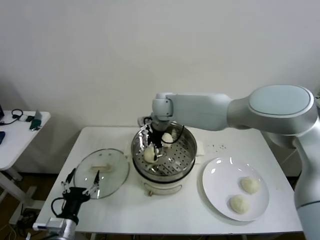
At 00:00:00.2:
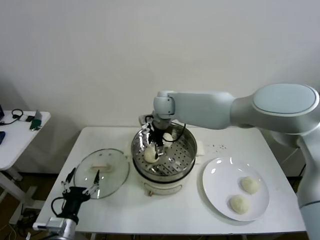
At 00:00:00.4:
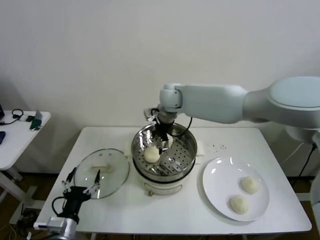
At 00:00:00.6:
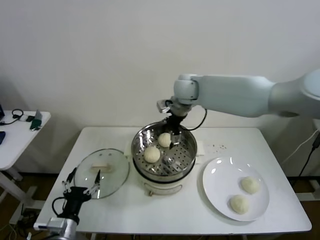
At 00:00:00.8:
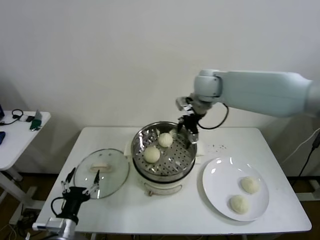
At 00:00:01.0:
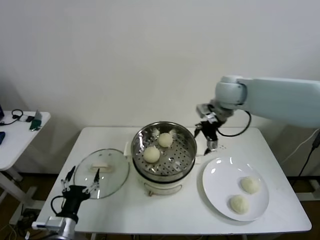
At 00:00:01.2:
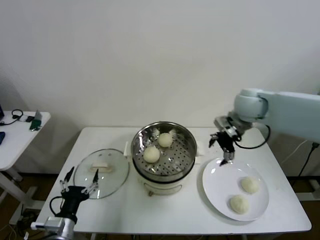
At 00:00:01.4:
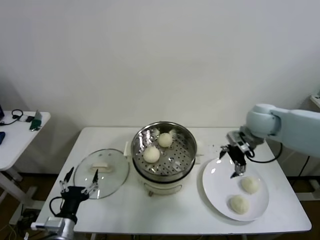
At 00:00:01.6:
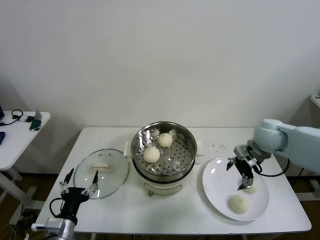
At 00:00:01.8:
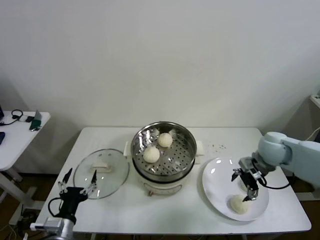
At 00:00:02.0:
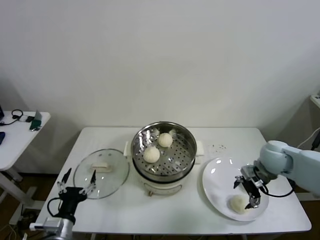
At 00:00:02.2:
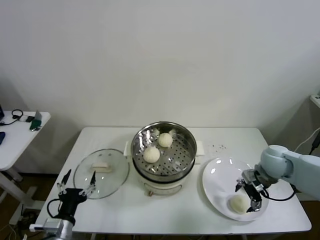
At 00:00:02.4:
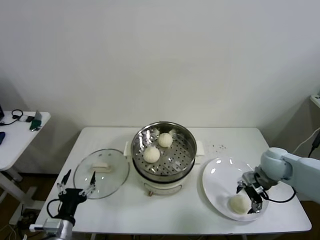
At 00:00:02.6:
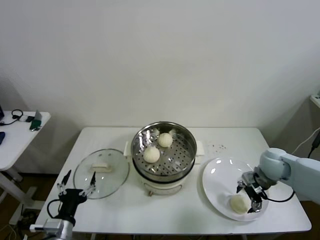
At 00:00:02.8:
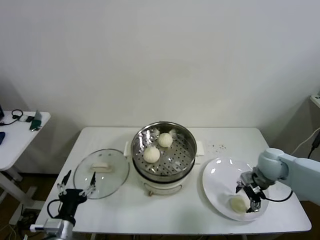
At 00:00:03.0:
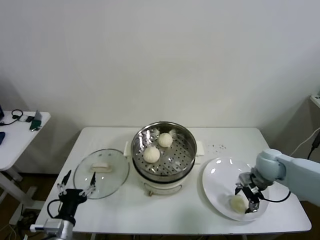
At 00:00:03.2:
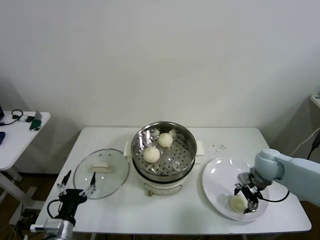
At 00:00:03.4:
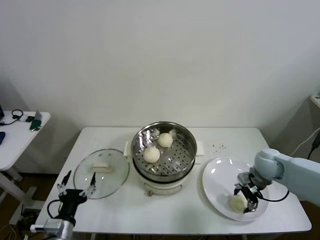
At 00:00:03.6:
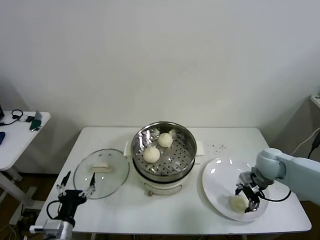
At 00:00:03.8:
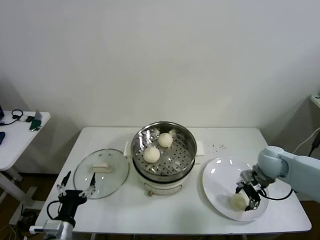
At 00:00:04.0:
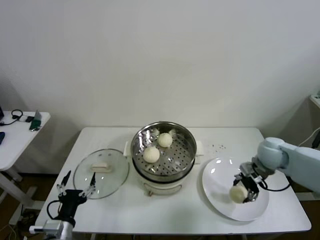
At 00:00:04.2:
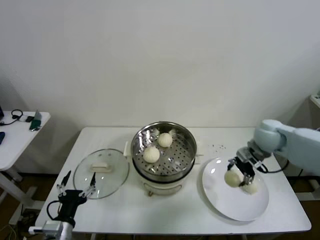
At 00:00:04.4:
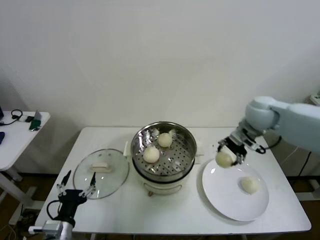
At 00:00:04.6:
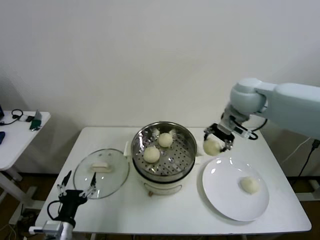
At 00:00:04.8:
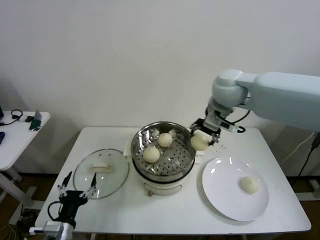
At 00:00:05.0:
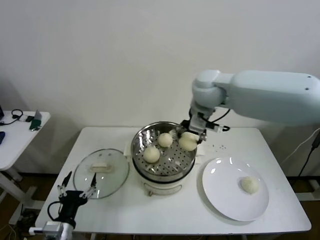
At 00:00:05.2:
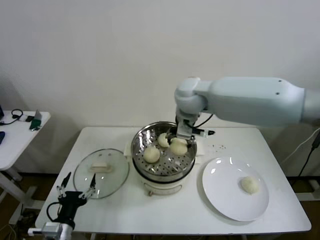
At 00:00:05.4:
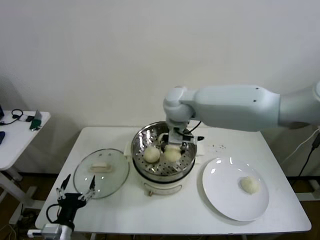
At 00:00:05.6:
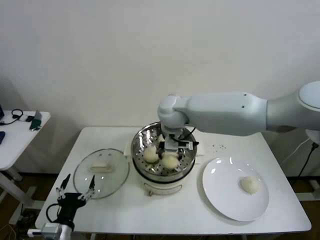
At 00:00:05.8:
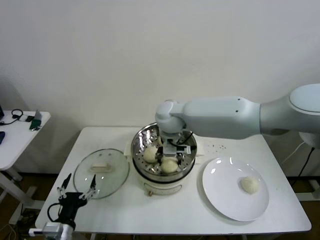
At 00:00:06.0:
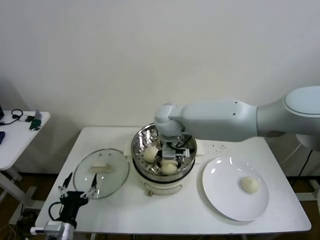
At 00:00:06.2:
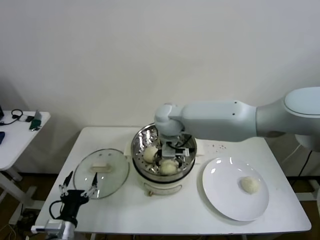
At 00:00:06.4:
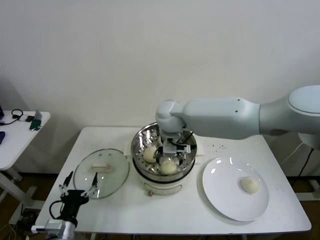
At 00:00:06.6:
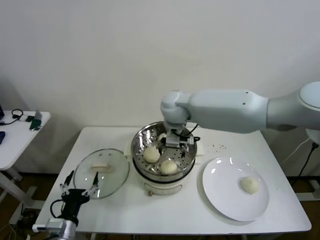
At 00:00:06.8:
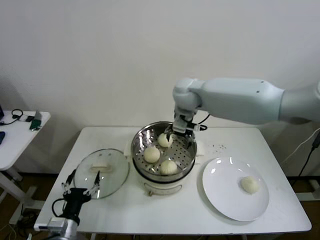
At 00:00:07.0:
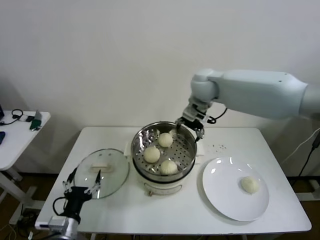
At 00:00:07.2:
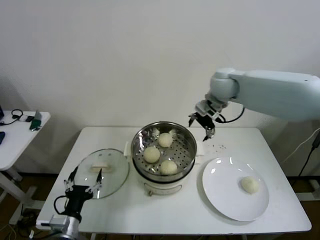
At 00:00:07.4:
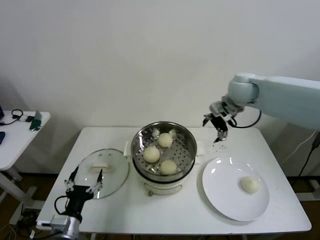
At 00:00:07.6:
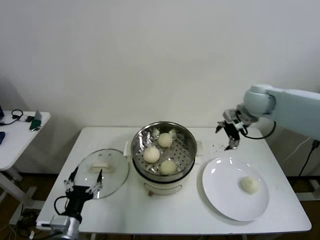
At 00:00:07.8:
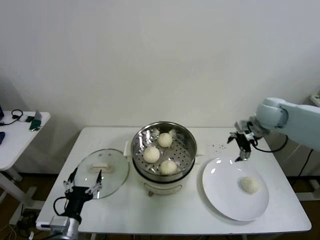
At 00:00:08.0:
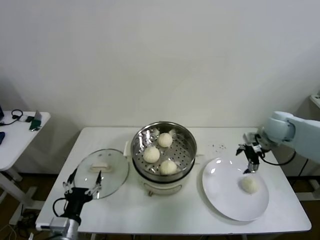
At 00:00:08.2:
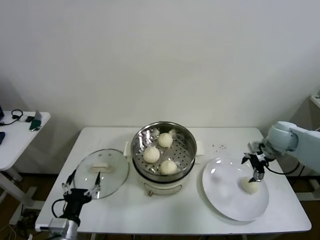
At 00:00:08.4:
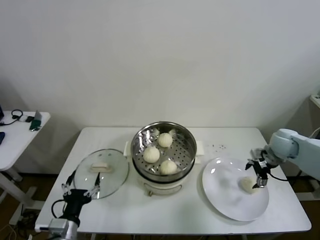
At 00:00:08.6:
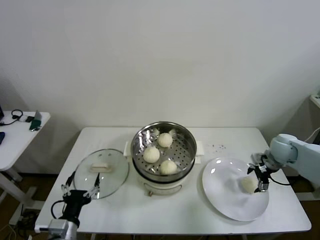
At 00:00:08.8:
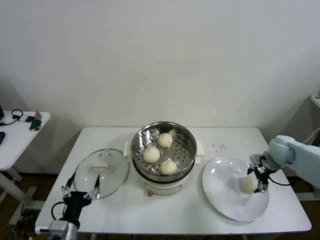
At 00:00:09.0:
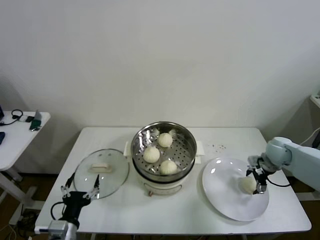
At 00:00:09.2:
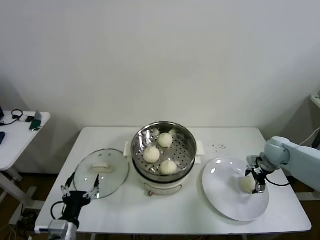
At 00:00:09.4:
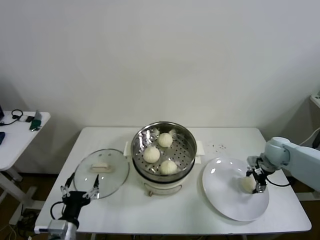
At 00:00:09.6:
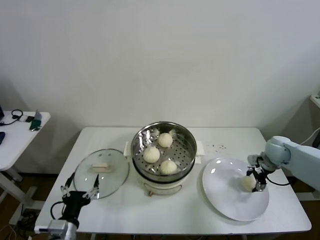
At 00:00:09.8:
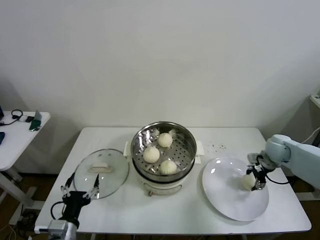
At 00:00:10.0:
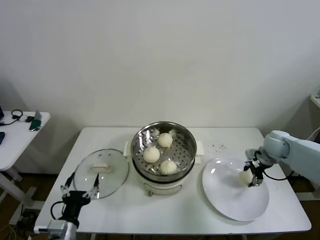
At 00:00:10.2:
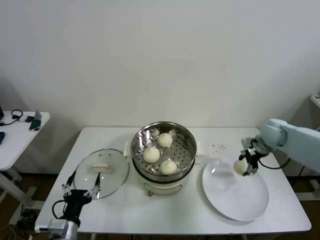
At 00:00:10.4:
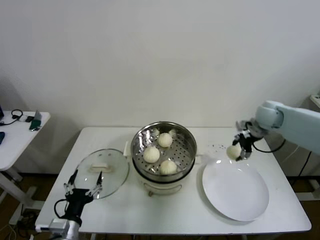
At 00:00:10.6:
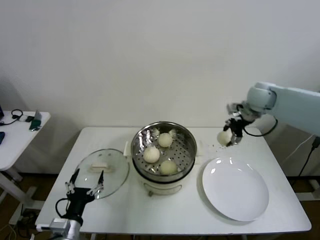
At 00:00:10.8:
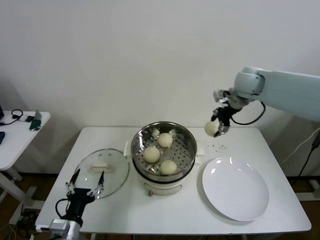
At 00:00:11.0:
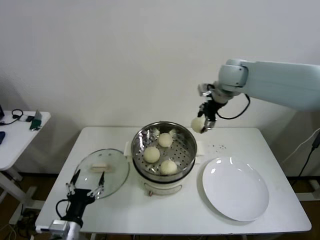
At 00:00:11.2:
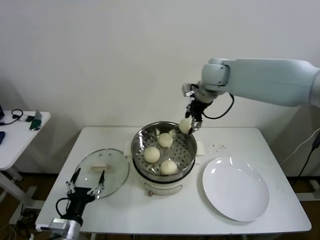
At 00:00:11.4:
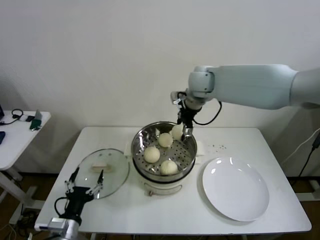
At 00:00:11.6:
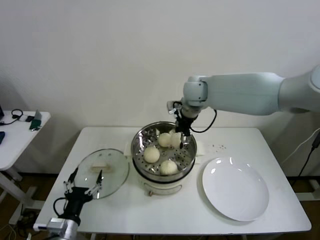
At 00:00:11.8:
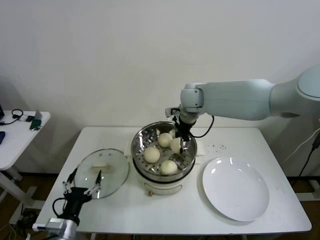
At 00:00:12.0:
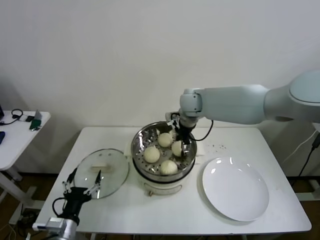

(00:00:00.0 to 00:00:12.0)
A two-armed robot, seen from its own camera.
Step, 00:00:00.0 - 00:00:03.0: Grasp the baozi in the plate with right gripper.
Step, 00:00:03.2 - 00:00:06.0: Place the baozi on the steamer with right gripper.
Step, 00:00:06.2 - 00:00:09.6: Grasp the baozi in the plate with right gripper.
00:00:00.0 - 00:00:01.6: The right gripper moves to the right, roughly 35 cm.
00:00:01.6 - 00:00:03.0: The right gripper travels downward by about 10 cm, and closes.
00:00:03.0 - 00:00:04.4: The right gripper moves upward and to the left, about 20 cm, and closes up.
00:00:04.4 - 00:00:06.0: The right gripper travels to the left by some 25 cm.
00:00:06.0 - 00:00:07.6: The right gripper shifts roughly 30 cm to the right, and opens its fingers.
00:00:07.6 - 00:00:09.0: The right gripper is displaced downward and to the right by about 20 cm.
00:00:09.0 - 00:00:10.4: The right gripper goes some 15 cm upward, forward and to the left, and closes its fingers.
00:00:10.4 - 00:00:12.0: The right gripper heads to the left, covering about 25 cm.

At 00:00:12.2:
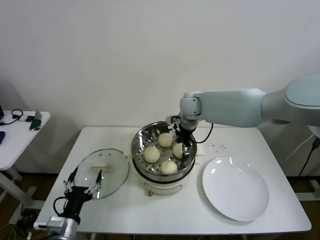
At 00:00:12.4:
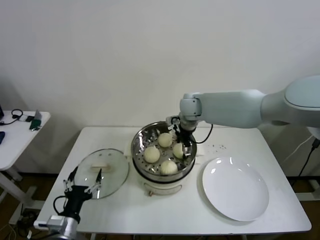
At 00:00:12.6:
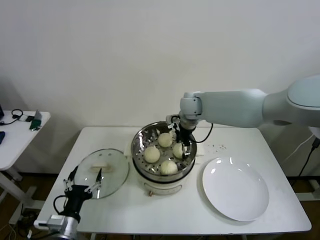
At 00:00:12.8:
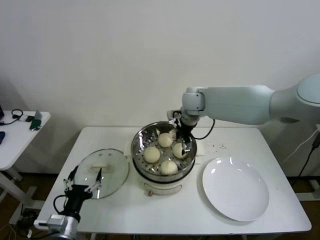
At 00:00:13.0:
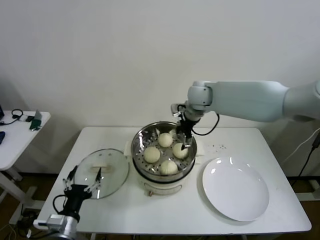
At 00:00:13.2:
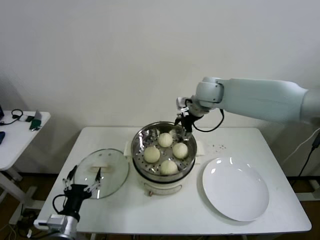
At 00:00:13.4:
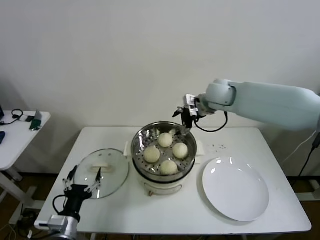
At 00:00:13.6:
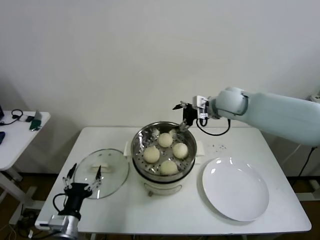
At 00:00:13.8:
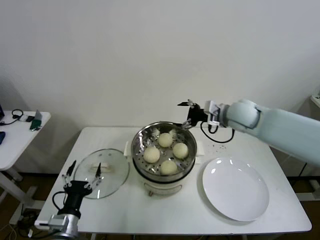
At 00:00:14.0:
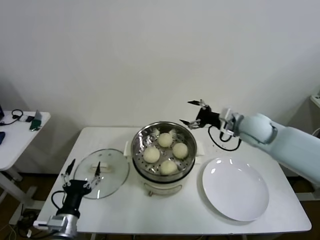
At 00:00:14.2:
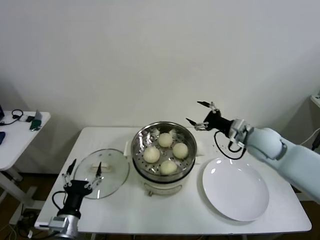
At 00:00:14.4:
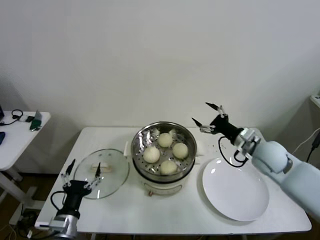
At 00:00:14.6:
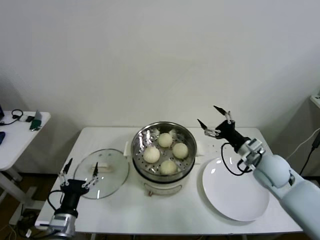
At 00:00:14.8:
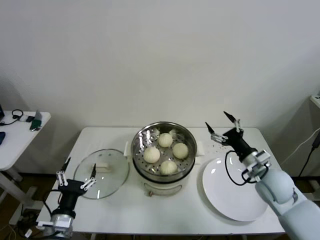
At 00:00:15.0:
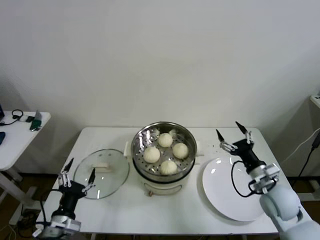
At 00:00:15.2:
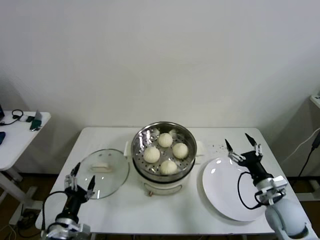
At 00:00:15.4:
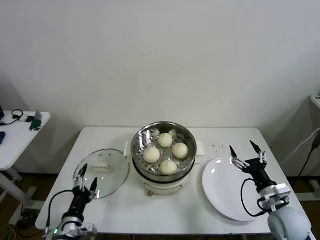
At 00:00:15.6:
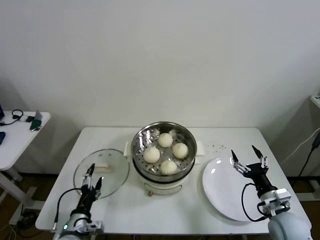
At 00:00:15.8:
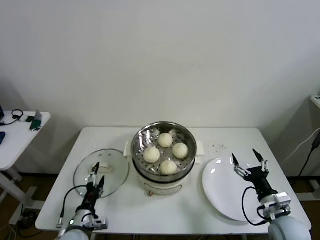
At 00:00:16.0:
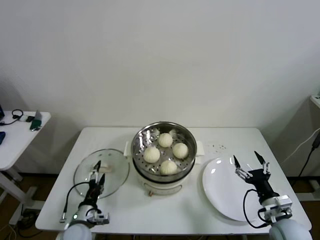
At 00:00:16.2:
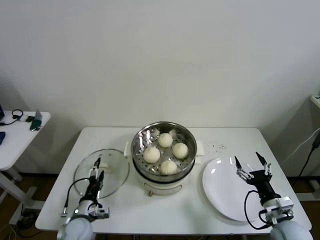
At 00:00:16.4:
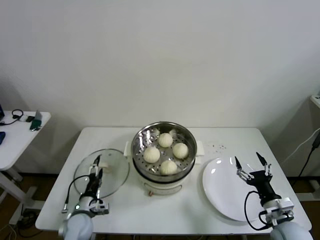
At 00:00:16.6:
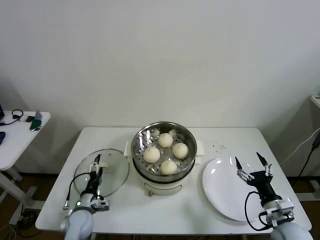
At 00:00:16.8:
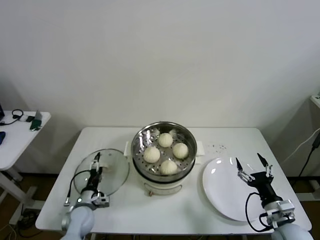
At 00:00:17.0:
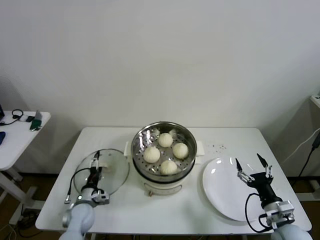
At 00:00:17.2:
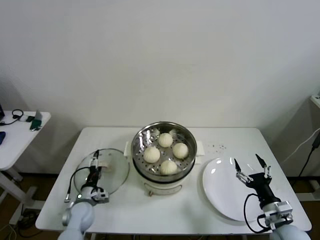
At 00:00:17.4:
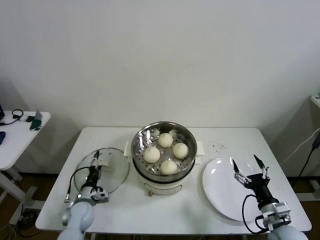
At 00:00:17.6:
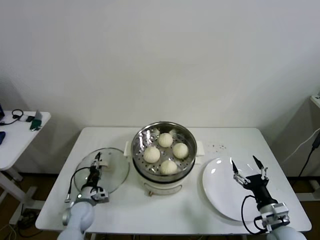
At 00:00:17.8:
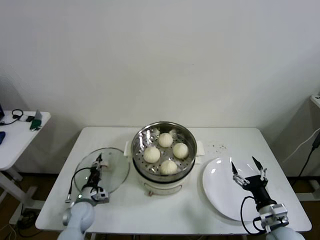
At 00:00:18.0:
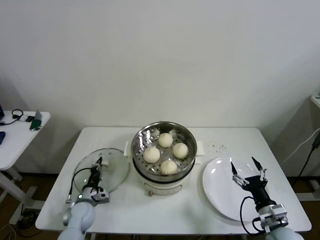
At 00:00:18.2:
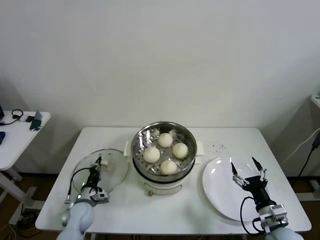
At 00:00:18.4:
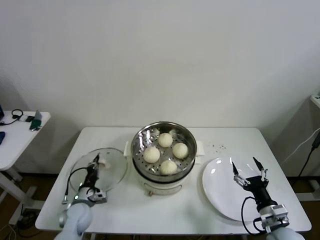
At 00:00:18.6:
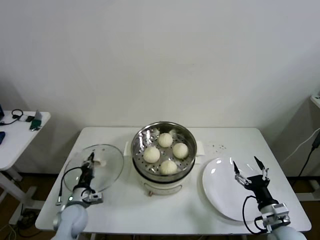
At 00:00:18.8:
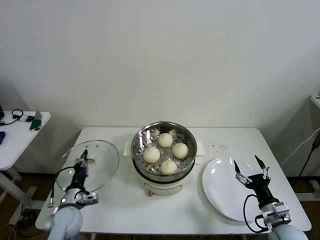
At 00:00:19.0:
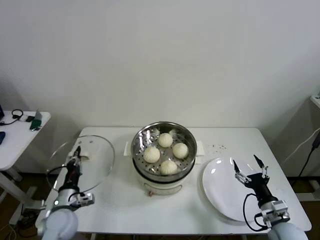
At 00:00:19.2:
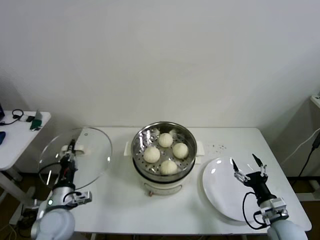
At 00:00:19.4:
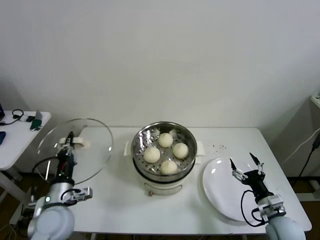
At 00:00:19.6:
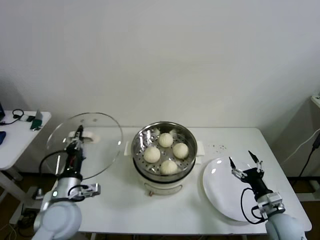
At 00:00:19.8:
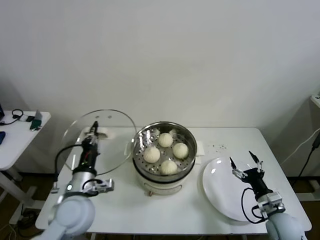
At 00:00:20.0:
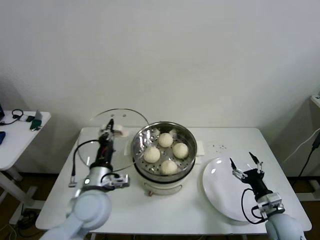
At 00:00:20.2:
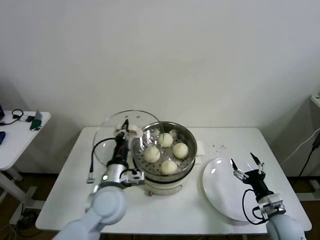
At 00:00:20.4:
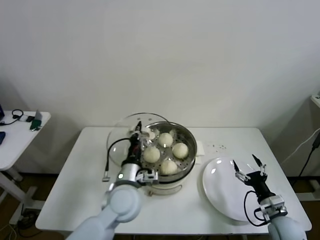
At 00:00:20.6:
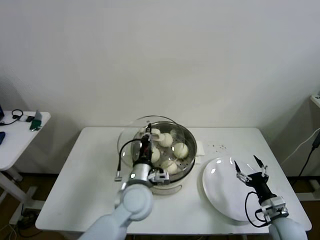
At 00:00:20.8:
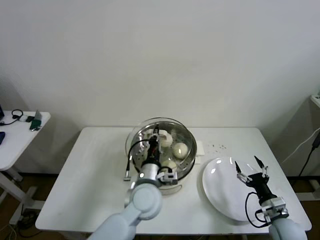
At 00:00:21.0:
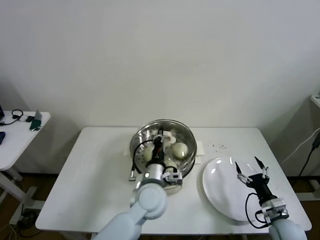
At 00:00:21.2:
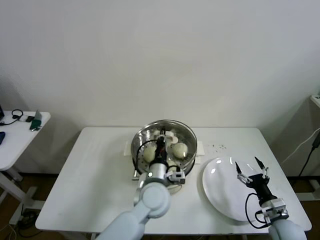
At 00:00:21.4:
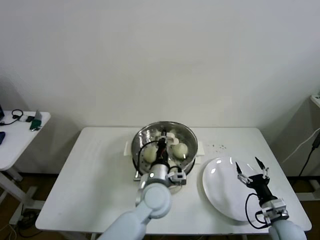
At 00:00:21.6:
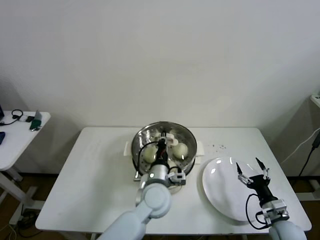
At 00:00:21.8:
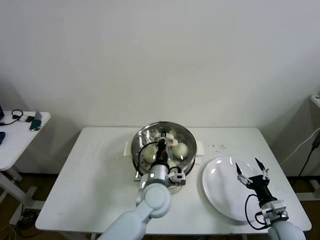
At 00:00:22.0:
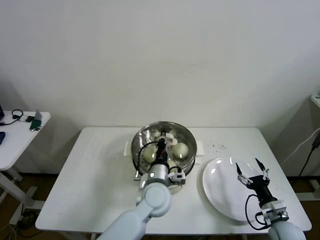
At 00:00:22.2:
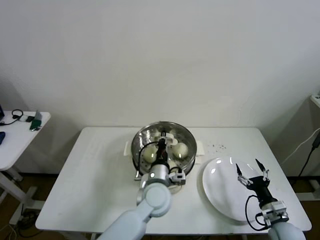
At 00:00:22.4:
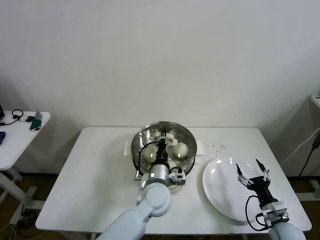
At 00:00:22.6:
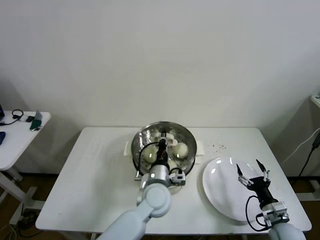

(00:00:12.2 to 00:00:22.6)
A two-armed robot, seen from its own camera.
Step, 00:00:12.6 - 00:00:17.8: Grasp the pot lid with left gripper.
00:00:12.2 - 00:00:13.6: The right gripper heads to the right, covering about 10 cm, and opens its fingers.
00:00:13.6 - 00:00:15.2: The right gripper is displaced backward, downward and to the right by some 35 cm.
00:00:15.2 - 00:00:16.6: The right gripper heads backward, covering about 5 cm. Meanwhile the left gripper is displaced forward and downward by roughly 15 cm.
00:00:16.6 - 00:00:18.2: The left gripper closes up.
00:00:18.2 - 00:00:19.6: The left gripper heads upward, covering about 20 cm.
00:00:19.6 - 00:00:21.2: The left gripper goes roughly 25 cm to the right.
00:00:21.2 - 00:00:22.6: There are only small adjustments of the grippers.
